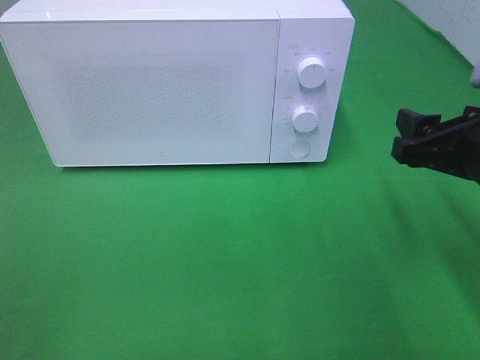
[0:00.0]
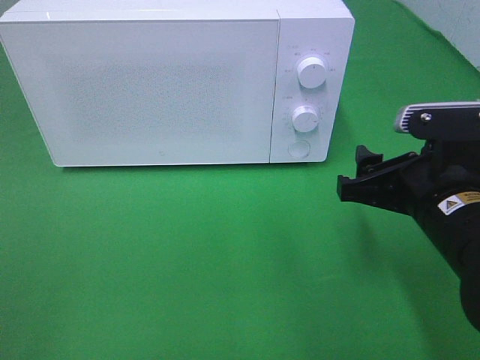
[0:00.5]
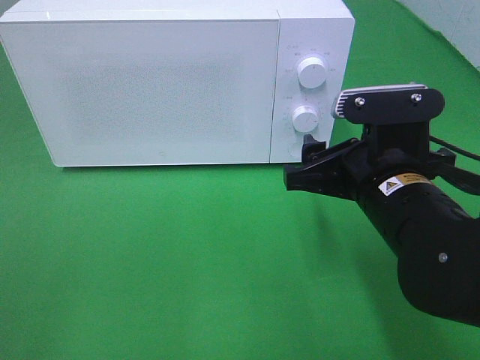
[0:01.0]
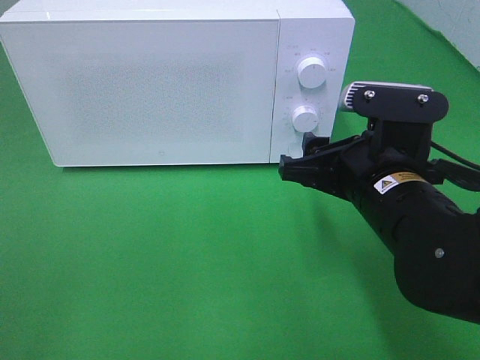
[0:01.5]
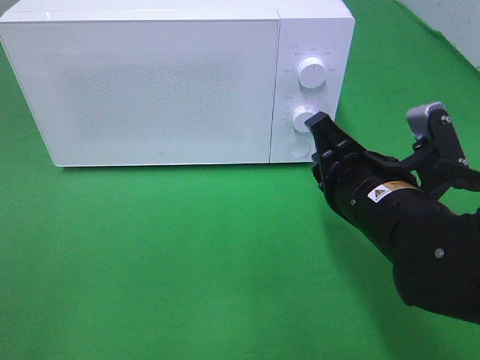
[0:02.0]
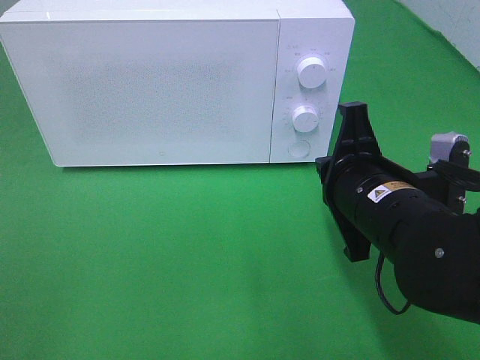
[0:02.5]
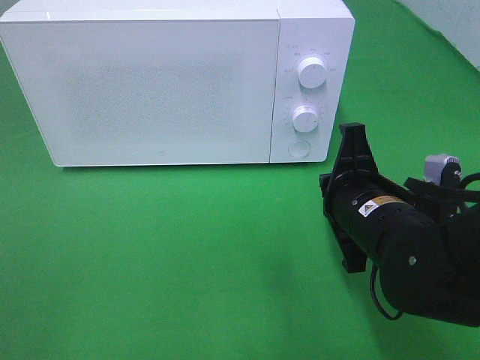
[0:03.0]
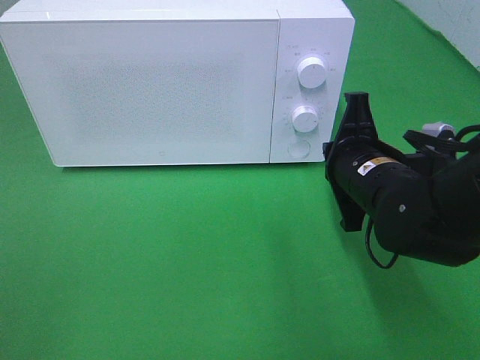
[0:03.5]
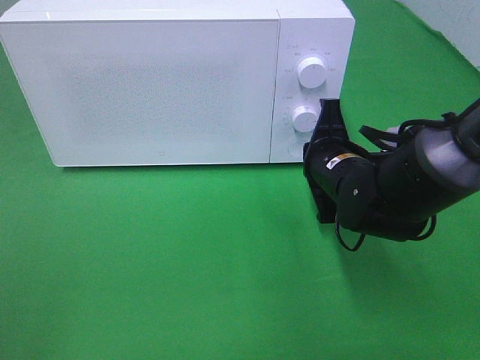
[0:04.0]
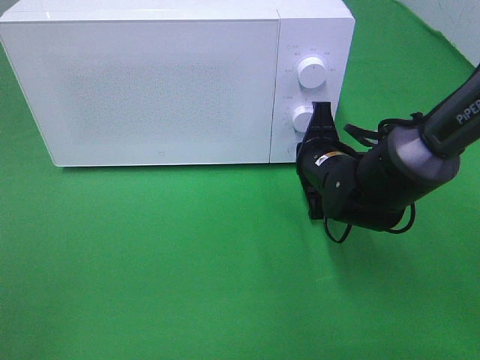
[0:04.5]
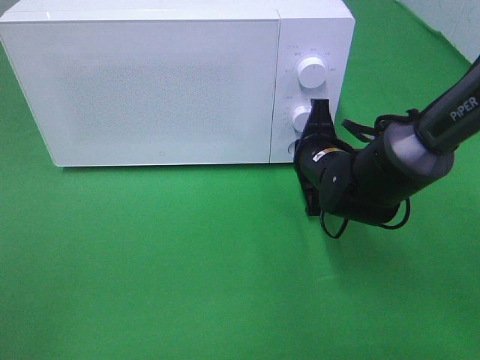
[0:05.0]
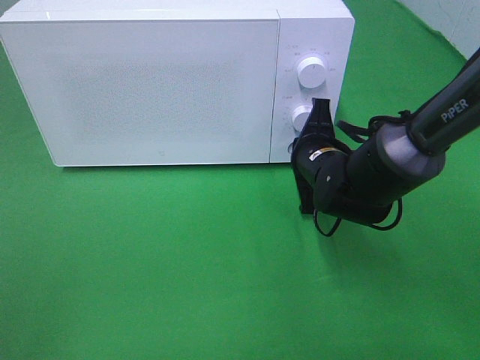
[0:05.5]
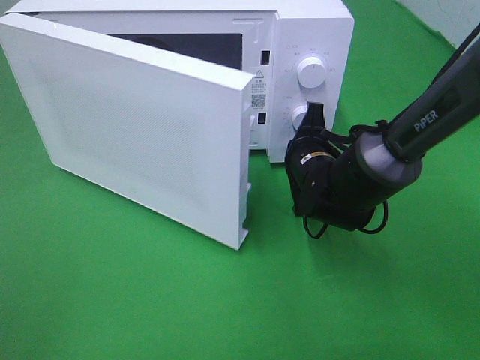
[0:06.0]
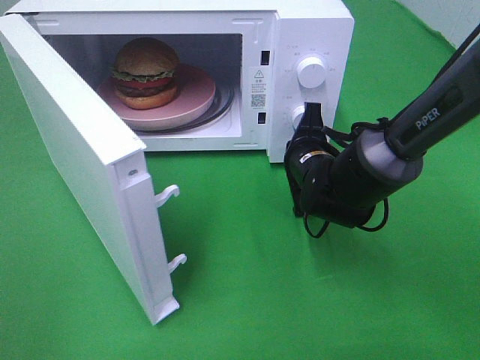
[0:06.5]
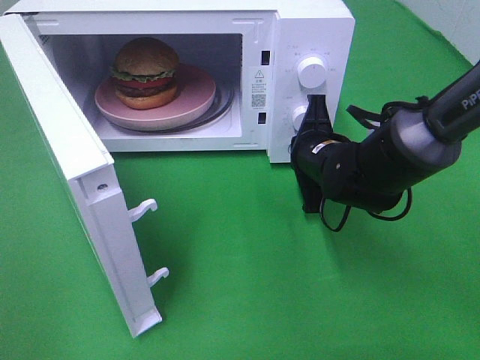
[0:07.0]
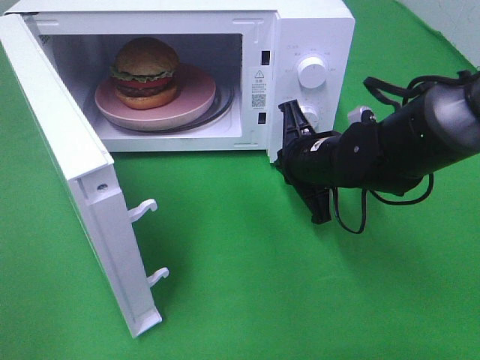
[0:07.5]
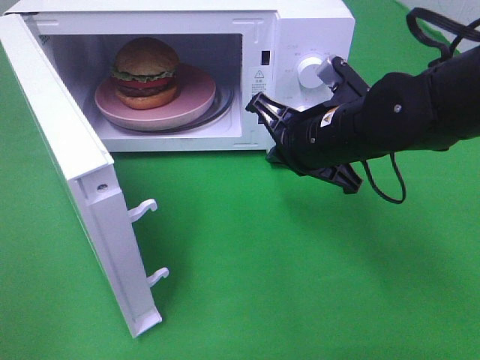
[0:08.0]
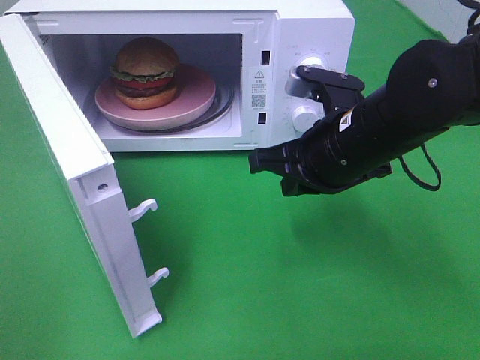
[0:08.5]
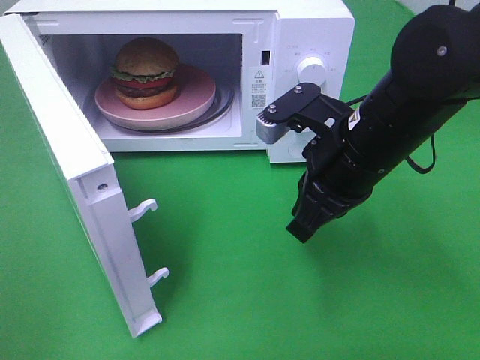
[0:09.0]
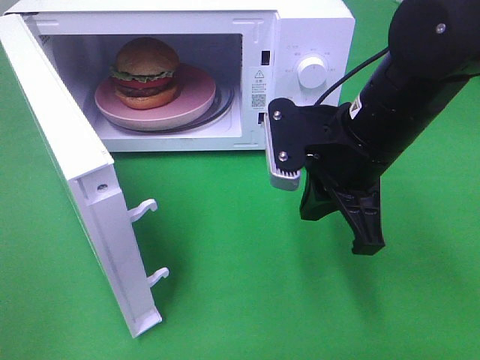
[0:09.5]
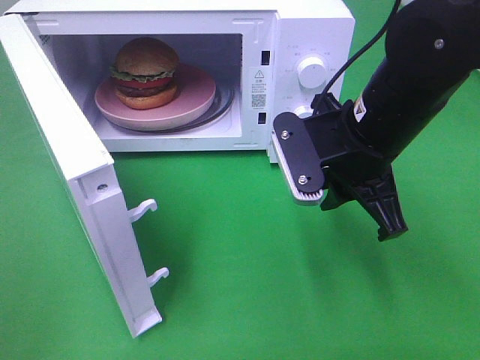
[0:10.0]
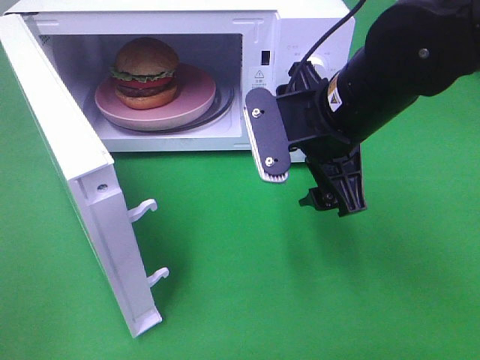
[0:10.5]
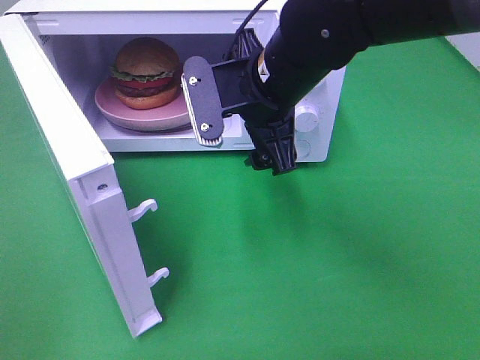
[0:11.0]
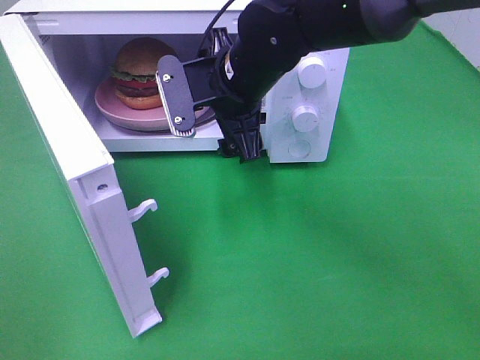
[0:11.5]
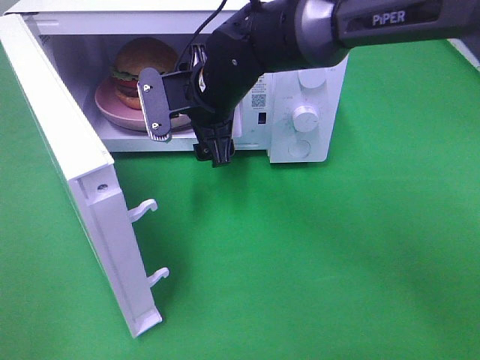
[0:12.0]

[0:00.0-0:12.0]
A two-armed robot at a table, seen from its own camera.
Task of the whole recording: Heat the burger.
Step, 0.0 to 7.0 s: Right hand: press the switch.
0.0 to 2.0 s: The right gripper moves to the left, about 10 cm, and closes up.
2.0 to 4.0 s: The right gripper is displaced forward and downward by approximately 10 cm.
4.0 to 6.0 s: The right gripper moves some 5 cm.
6.0 to 8.0 s: The right gripper goes about 10 cm upward and backward.
8.0 to 10.0 s: The right gripper ends up about 5 cm from where it was.
10.0 to 12.0 s: The right gripper heads to the left and forward, covering roughly 20 cm, and opens its fingers.

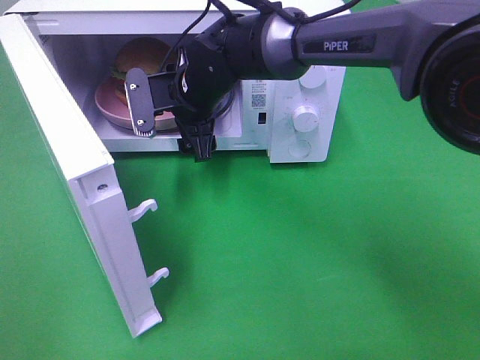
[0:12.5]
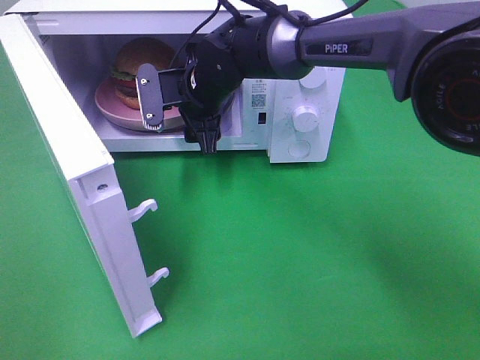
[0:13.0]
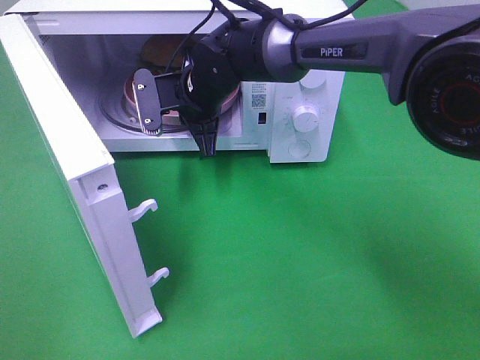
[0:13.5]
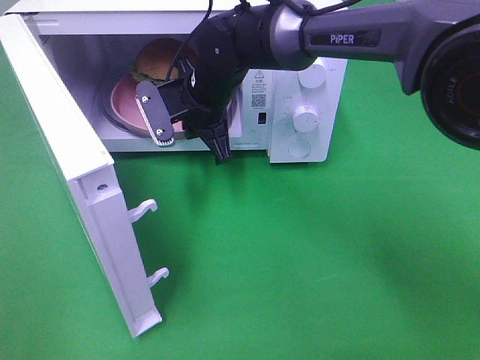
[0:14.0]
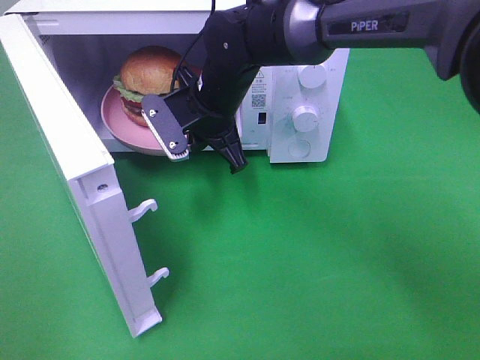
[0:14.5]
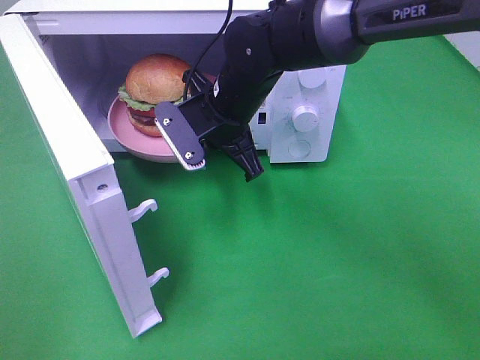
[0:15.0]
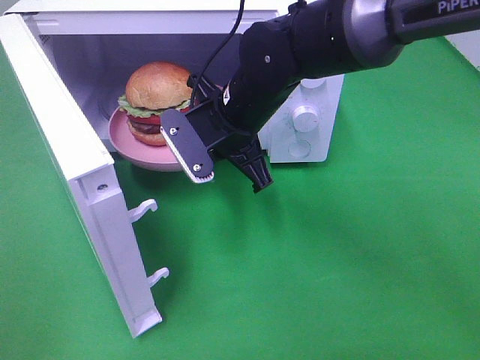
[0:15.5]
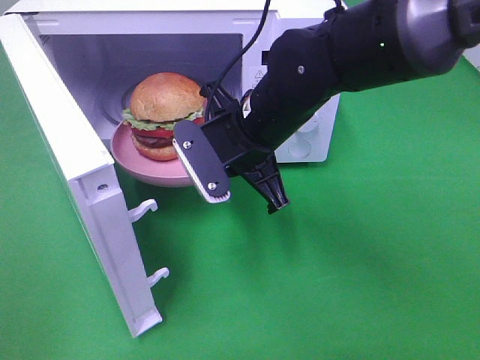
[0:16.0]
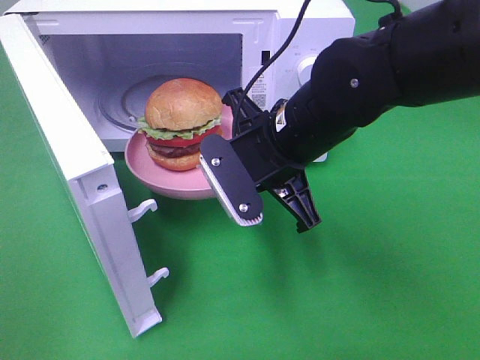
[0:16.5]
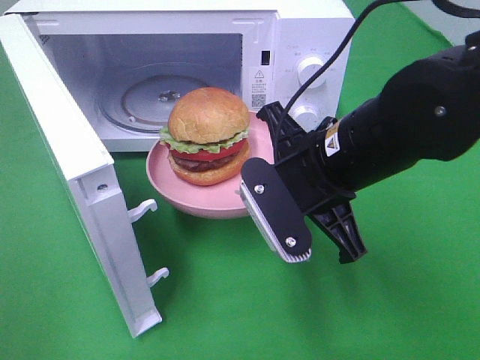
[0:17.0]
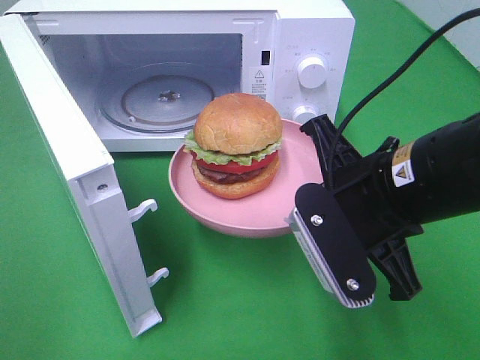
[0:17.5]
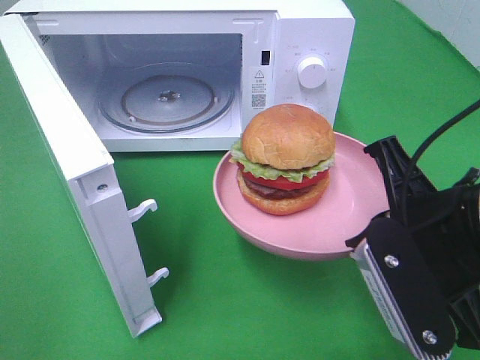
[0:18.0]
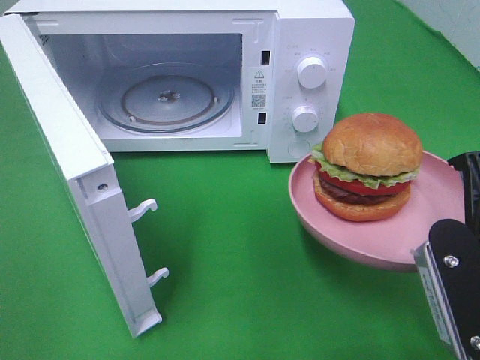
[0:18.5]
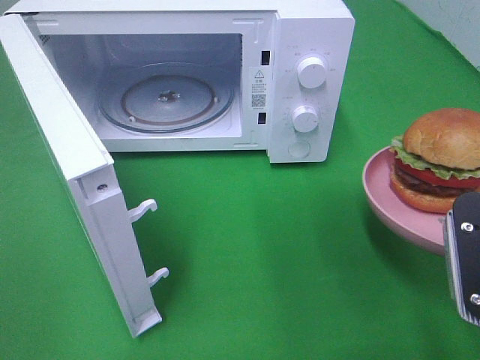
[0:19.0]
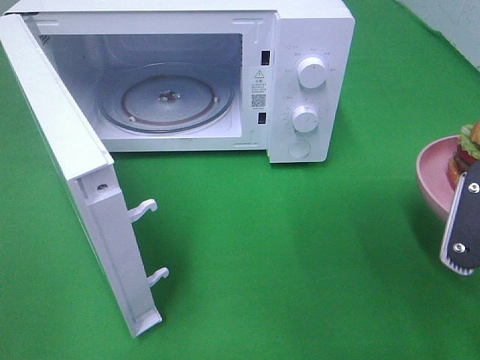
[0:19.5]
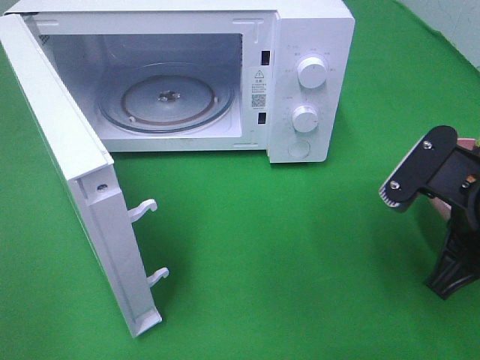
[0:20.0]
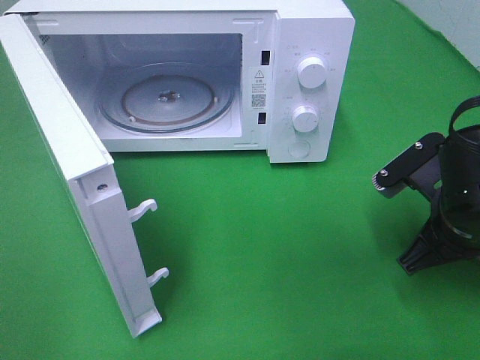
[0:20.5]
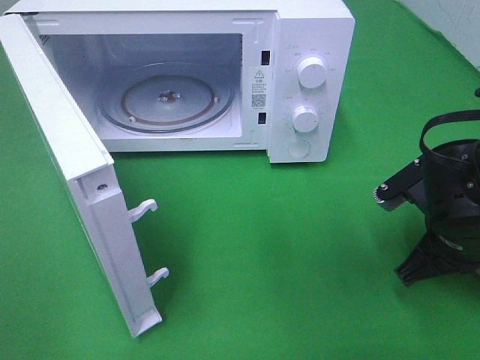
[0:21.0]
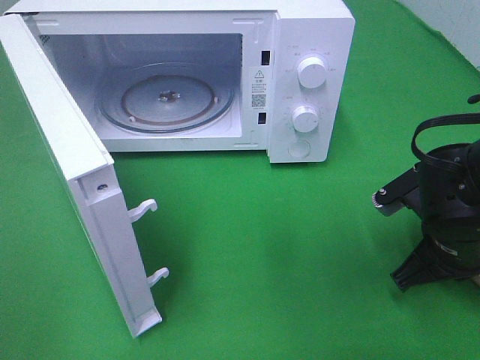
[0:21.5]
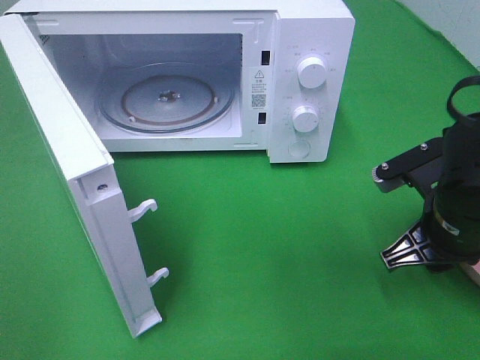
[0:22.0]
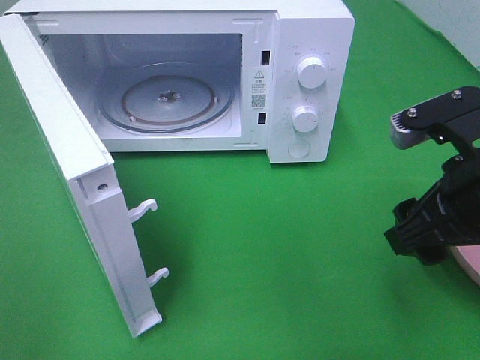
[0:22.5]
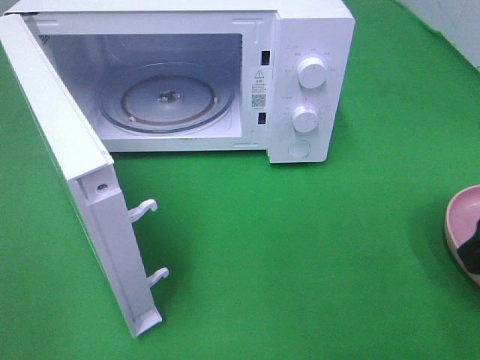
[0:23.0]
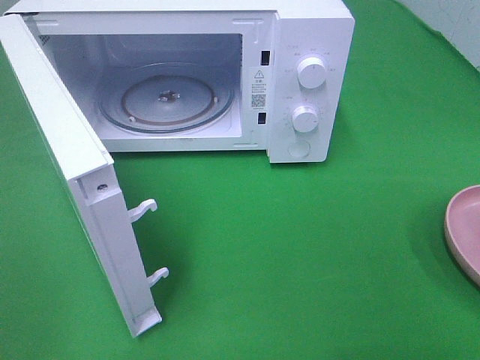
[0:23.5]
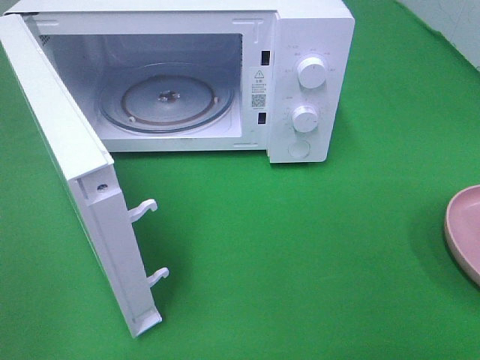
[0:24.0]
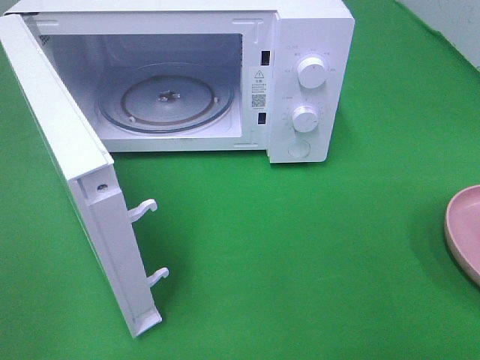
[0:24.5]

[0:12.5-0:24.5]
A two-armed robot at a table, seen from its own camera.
Task of the whole recording: Heat the burger.
Step, 14.0 to 23.5 s: Right hand: place the plate on the table.
12.5 to 14.5 s: The right gripper closes its fingers.
14.5 to 16.5 s: The right gripper is displaced backward and to the right by about 15 cm.
16.5 to 18.5 s: The right gripper goes roughly 20 cm backward and to the right.
18.5 to 20.5 s: The right gripper moves forward and downward, some 10 cm.
20.5 to 22.5 s: The right gripper moves upward, roughly 10 cm, and opens.
22.5 to 24.5 s: The right gripper shifts some 20 cm backward and to the right.

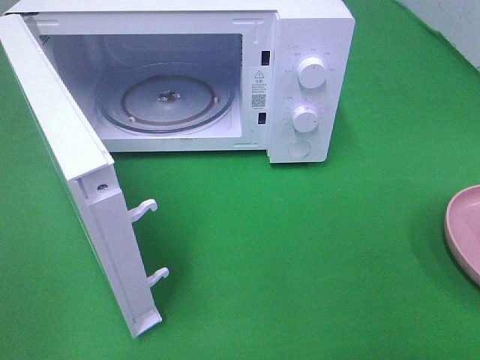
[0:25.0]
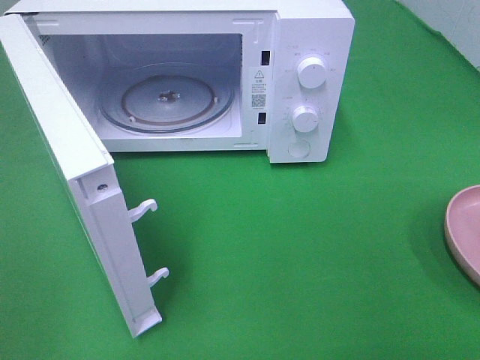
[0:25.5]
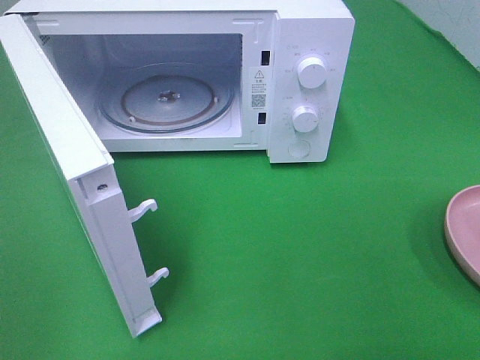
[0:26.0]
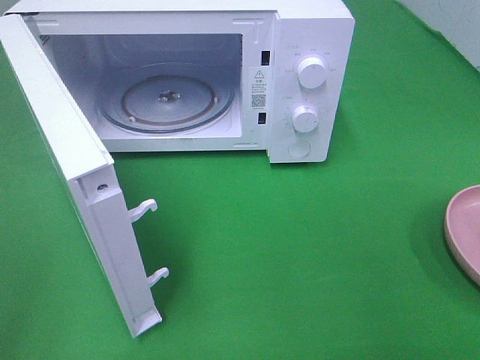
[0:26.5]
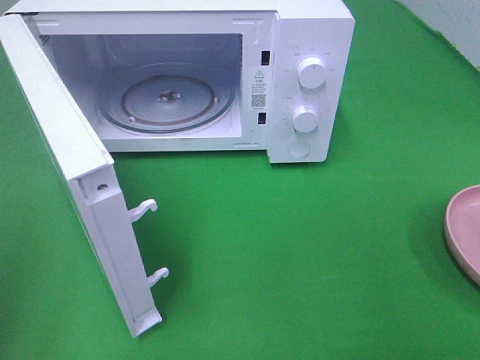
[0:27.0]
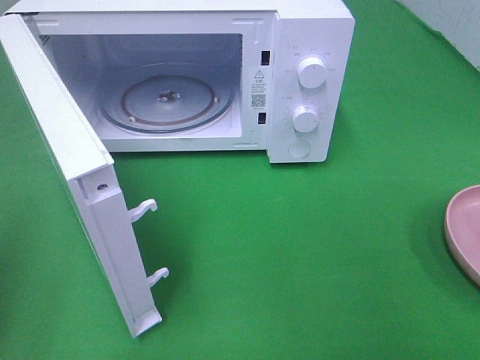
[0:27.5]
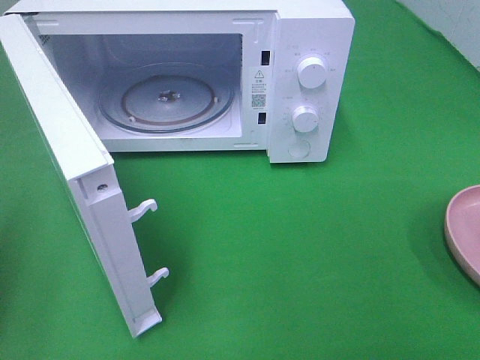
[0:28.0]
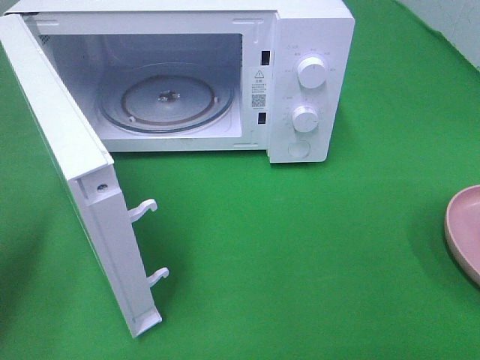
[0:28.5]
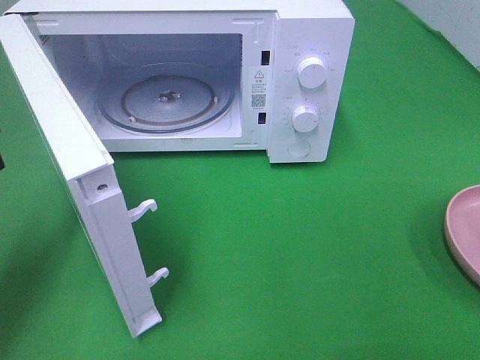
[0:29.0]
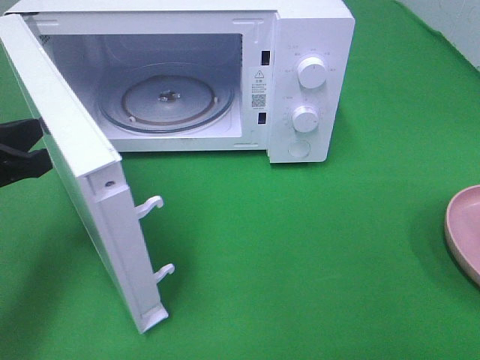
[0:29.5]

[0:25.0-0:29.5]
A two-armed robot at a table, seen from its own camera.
Task of the whole recording: Heat the burger.
27.0 to 29.5 s: The left gripper goes about 20 cm forward, downward and to the right.
